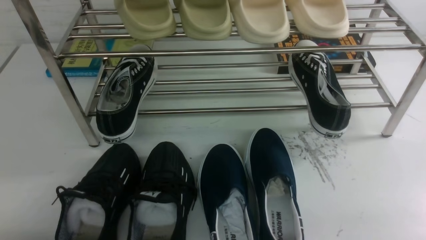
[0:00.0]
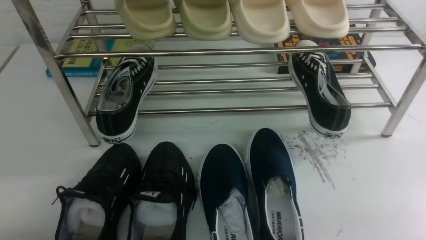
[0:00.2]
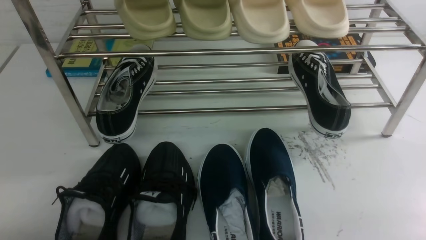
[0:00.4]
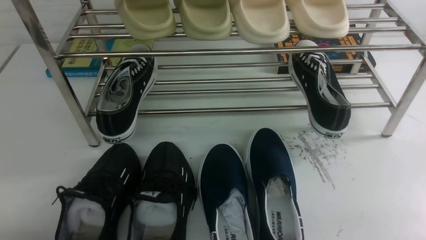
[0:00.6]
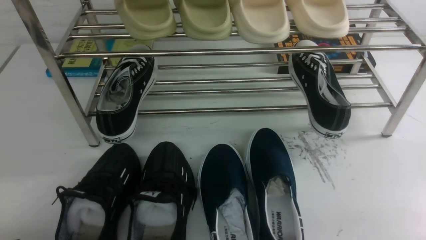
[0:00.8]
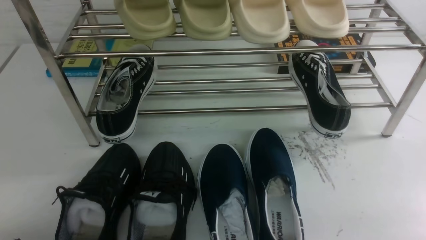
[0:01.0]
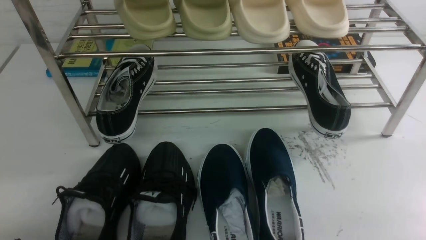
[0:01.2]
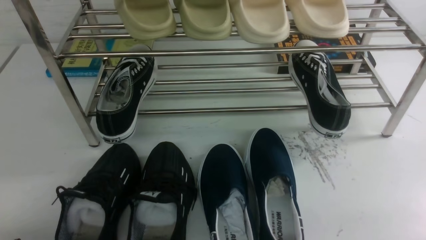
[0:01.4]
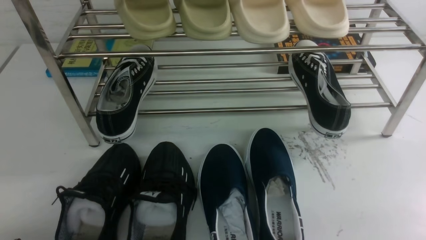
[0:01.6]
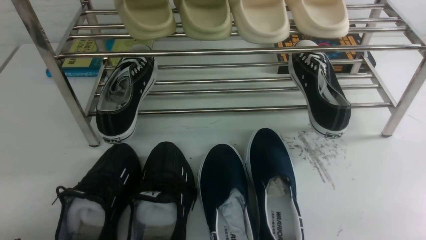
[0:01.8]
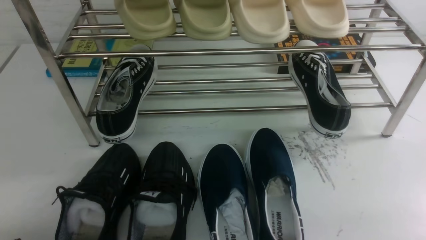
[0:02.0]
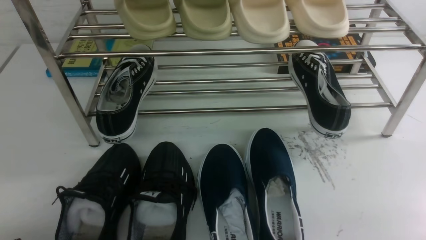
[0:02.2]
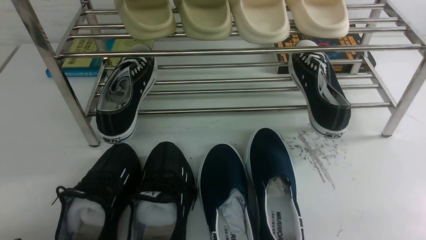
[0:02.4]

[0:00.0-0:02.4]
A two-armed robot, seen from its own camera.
0:00.0 to 0:02.4: Both grippers stay about where they are.
